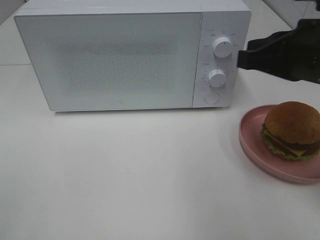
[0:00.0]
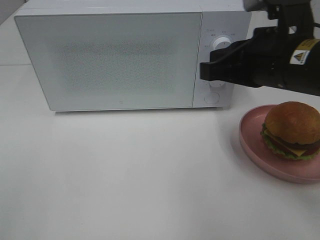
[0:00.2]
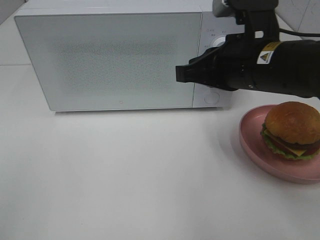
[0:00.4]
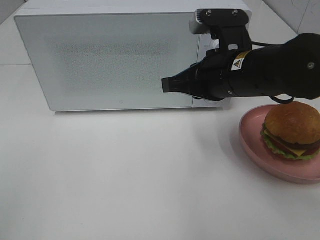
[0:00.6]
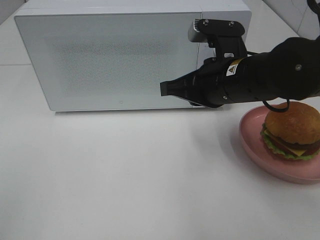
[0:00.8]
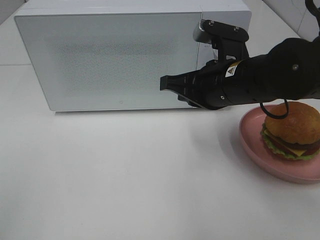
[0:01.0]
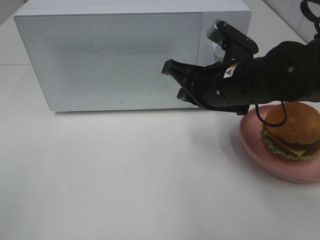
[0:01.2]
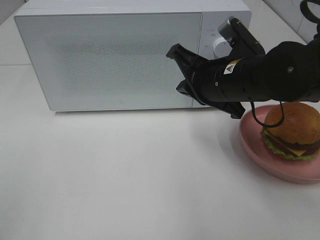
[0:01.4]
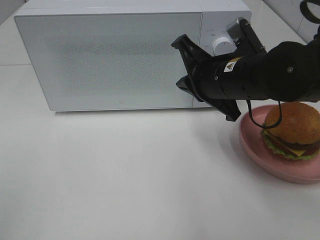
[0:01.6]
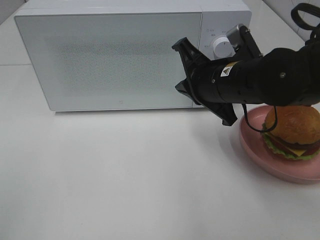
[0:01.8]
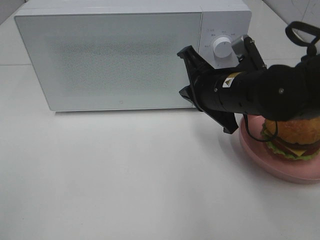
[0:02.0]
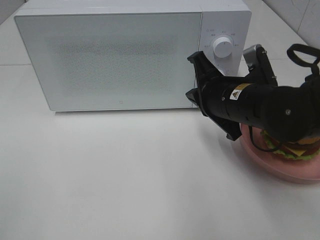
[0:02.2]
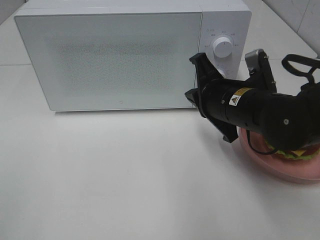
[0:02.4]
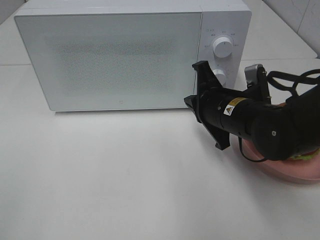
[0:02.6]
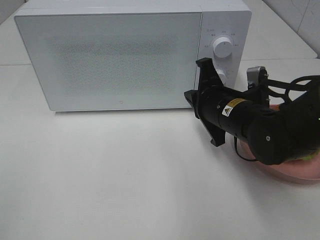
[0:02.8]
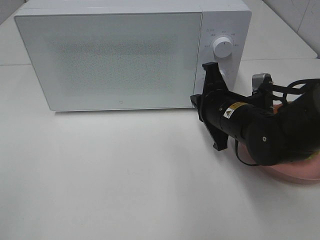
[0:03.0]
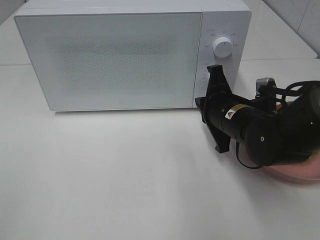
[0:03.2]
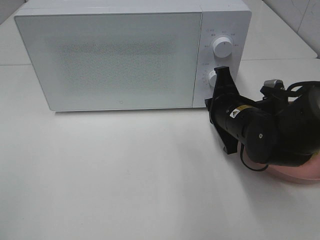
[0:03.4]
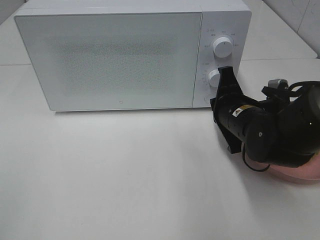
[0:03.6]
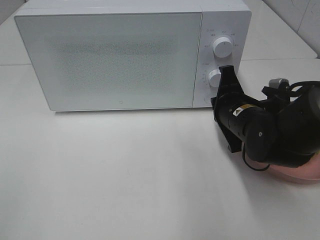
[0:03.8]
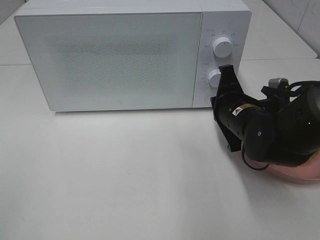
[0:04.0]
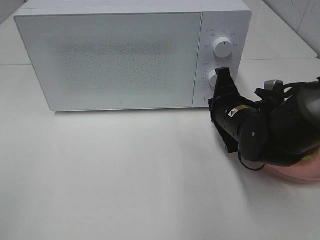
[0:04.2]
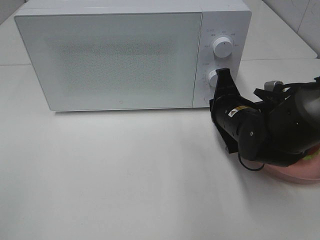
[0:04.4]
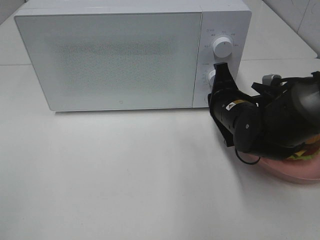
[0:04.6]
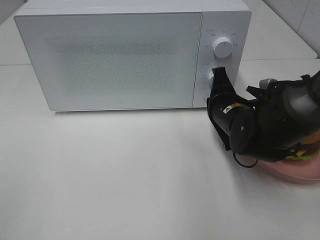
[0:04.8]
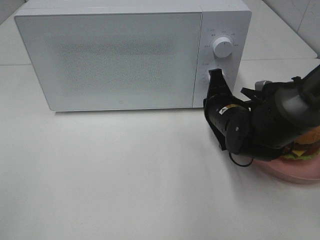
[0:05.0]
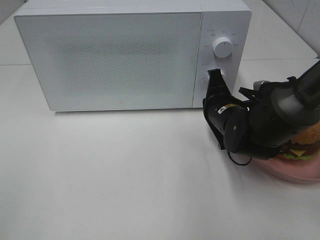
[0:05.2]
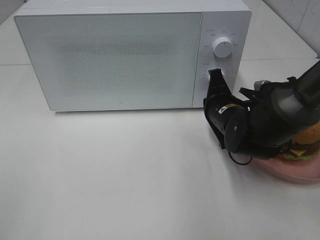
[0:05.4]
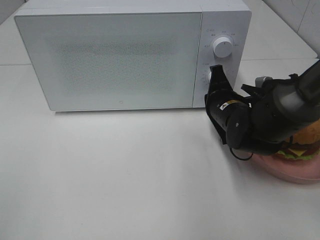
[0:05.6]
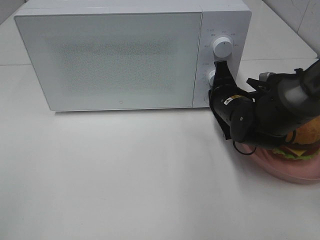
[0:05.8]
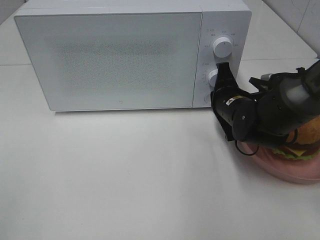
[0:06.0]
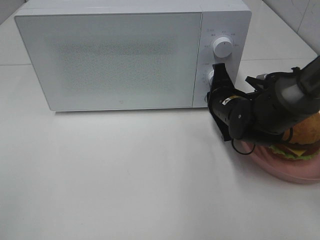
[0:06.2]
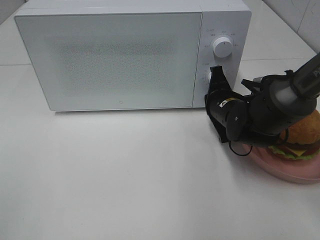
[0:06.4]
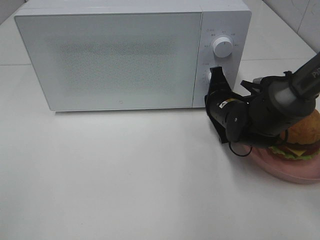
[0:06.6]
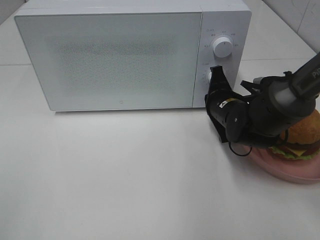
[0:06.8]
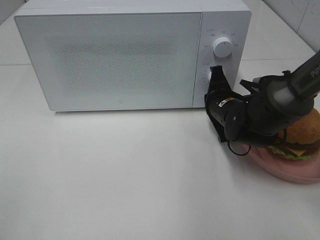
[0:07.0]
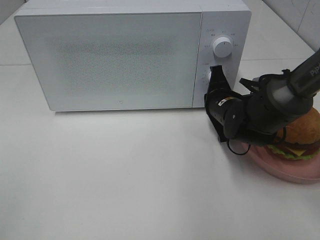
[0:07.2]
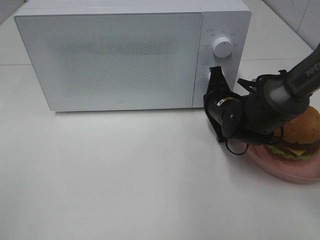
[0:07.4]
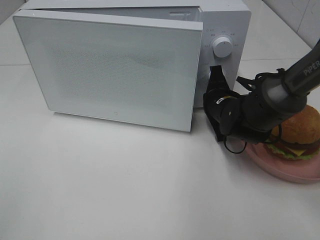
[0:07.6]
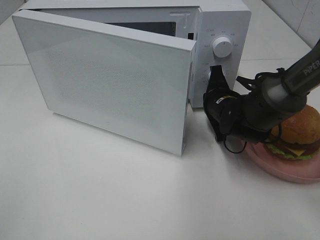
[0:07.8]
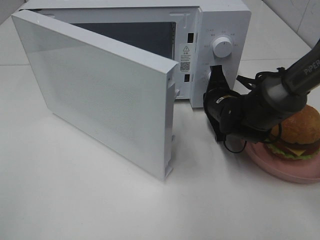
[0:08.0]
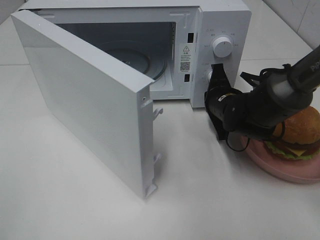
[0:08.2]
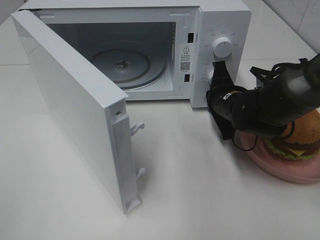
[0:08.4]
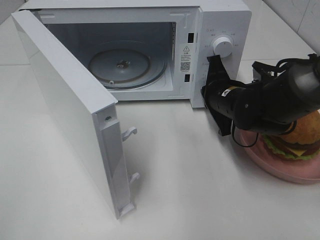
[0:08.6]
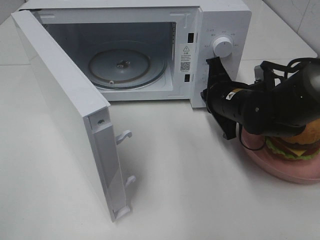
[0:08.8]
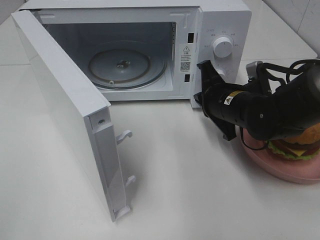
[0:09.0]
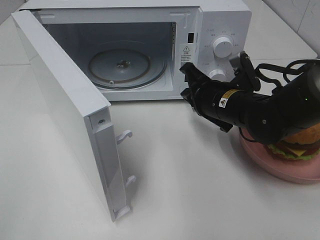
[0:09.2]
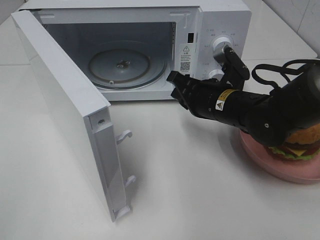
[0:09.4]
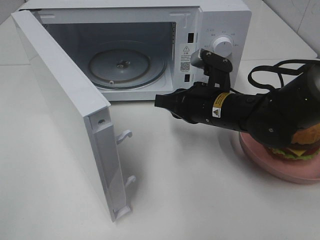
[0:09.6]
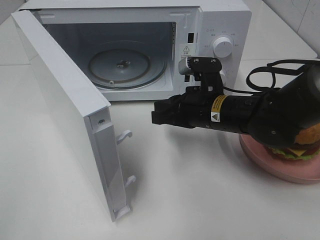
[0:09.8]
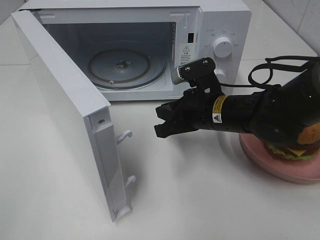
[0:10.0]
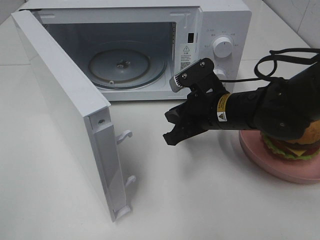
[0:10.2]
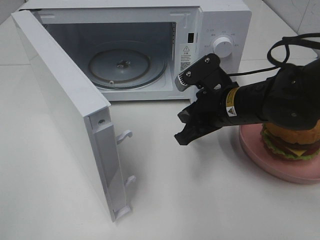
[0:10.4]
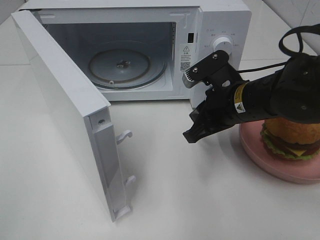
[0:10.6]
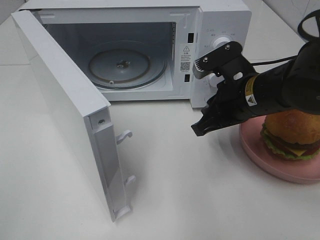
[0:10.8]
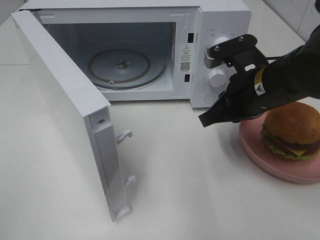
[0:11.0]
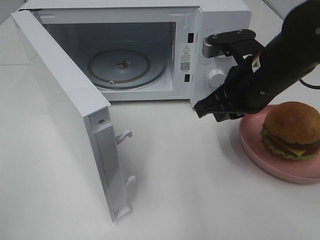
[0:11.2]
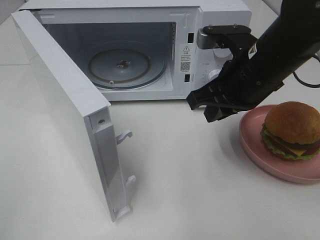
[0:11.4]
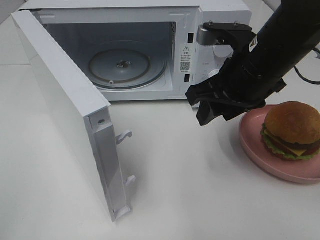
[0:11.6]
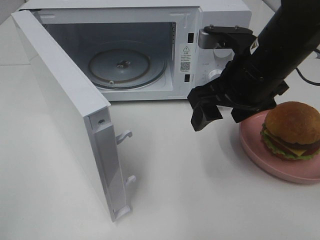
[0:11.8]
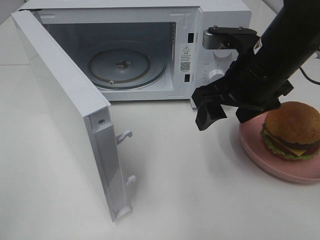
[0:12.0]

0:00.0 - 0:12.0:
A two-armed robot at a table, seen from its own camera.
Task of the whole recording: Heat the burger.
Step, 0:00.0 - 0:08.4: Right hand: press the switch.
0:00.0 - 0:01.6: The right gripper travels to the left, downward and forward by roughly 10 cm.
0:01.6 - 0:03.0: The right gripper travels downward by some 5 cm.
0:03.0 - 0:04.4: The grippers make only small movements.
0:04.4 - 0:06.0: There are only small adjustments of the grippers.
0:06.0 - 0:07.6: The grippers stay close to where they were, moving slightly.
0:07.6 - 0:09.0: The right gripper moves approximately 5 cm.
0:10.4 - 0:12.0: The right gripper shifts about 10 cm upward, and opens.

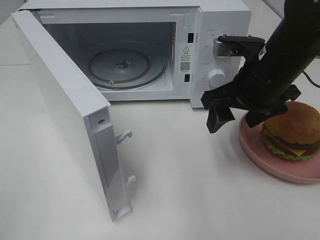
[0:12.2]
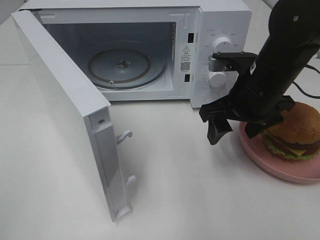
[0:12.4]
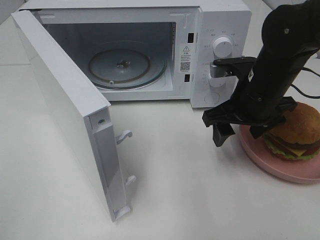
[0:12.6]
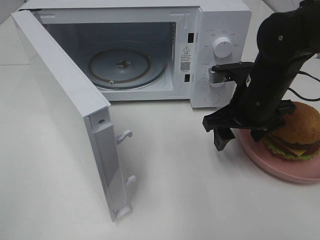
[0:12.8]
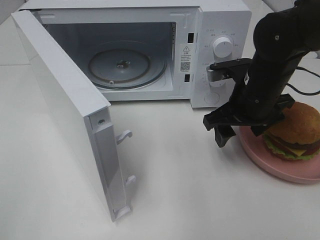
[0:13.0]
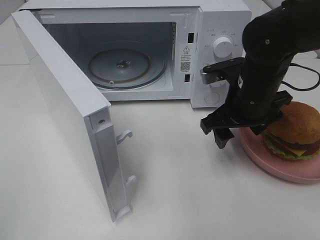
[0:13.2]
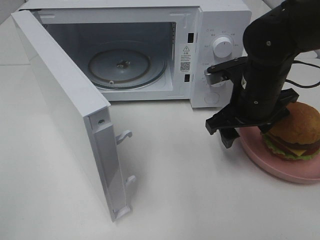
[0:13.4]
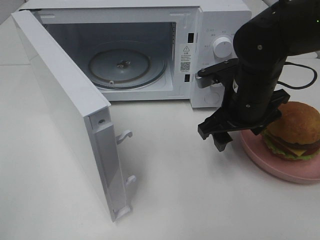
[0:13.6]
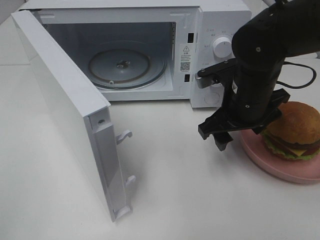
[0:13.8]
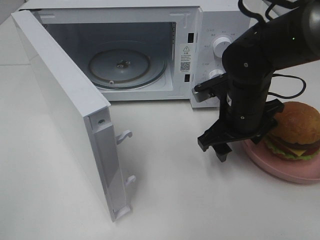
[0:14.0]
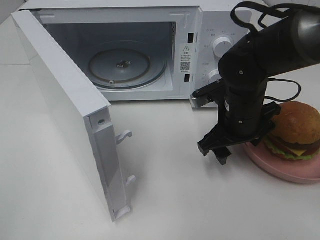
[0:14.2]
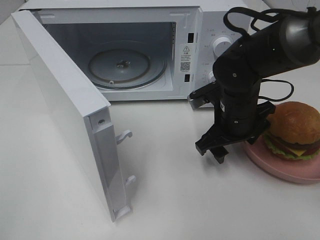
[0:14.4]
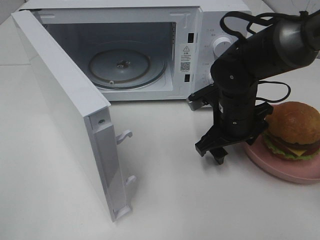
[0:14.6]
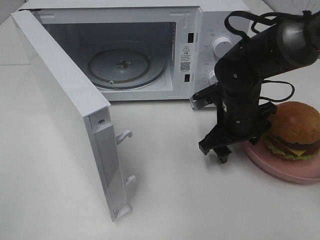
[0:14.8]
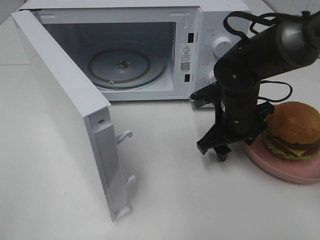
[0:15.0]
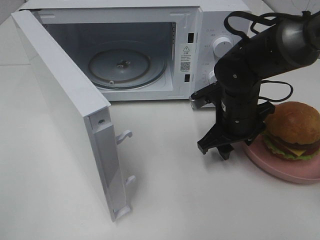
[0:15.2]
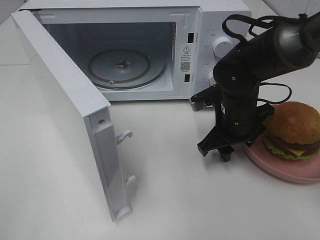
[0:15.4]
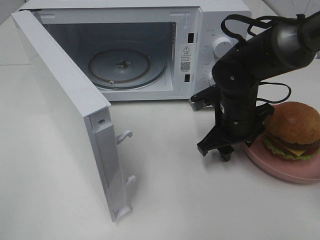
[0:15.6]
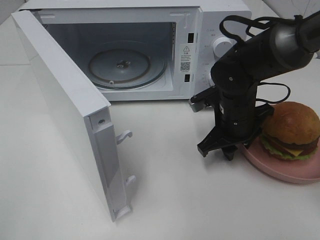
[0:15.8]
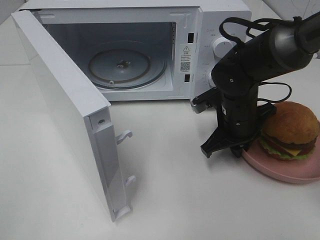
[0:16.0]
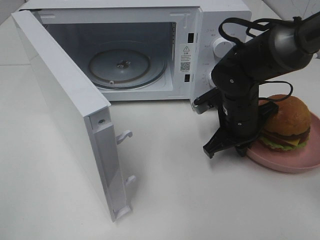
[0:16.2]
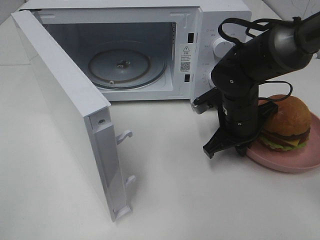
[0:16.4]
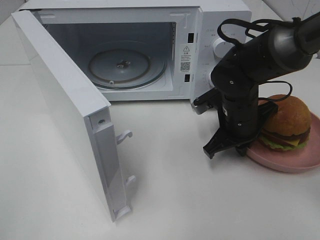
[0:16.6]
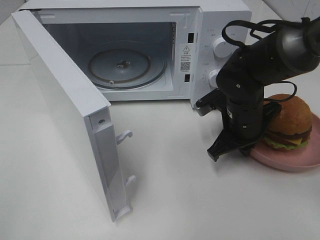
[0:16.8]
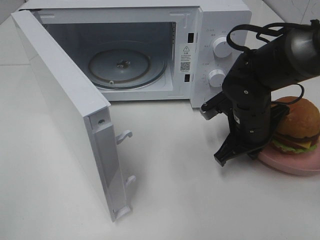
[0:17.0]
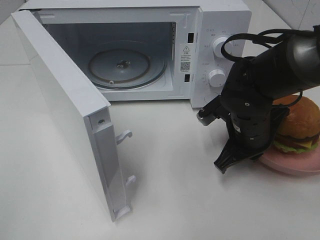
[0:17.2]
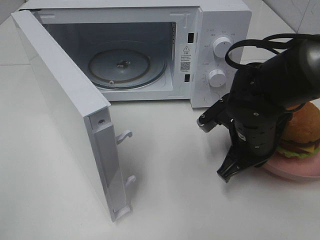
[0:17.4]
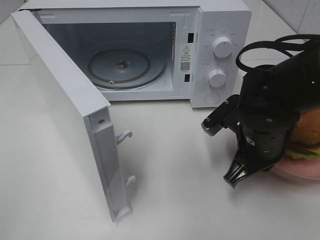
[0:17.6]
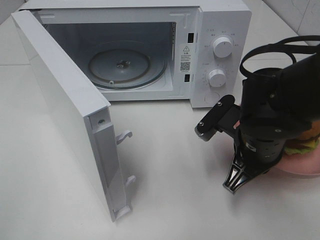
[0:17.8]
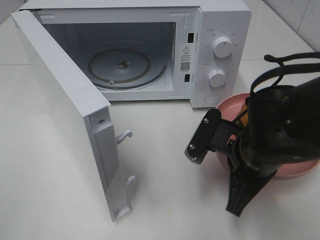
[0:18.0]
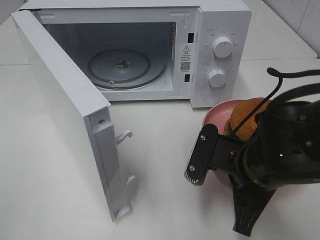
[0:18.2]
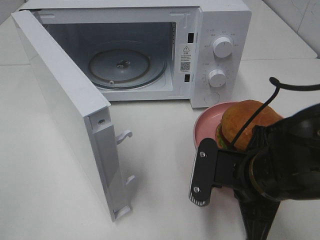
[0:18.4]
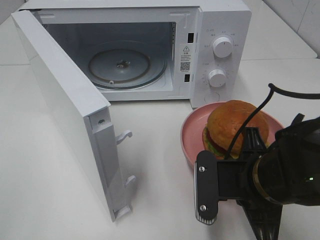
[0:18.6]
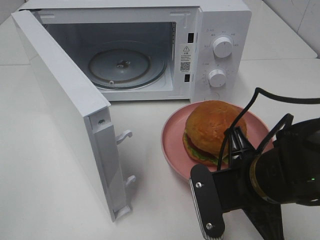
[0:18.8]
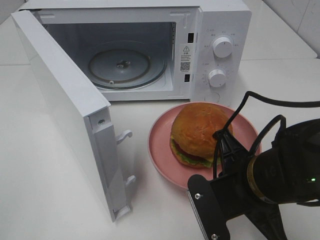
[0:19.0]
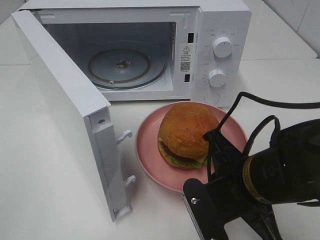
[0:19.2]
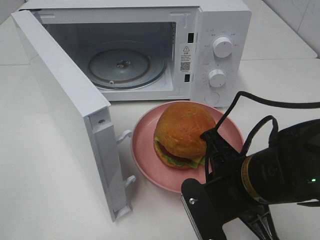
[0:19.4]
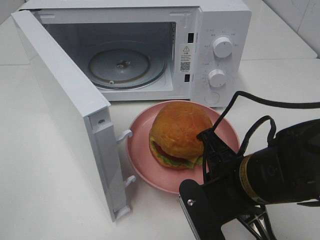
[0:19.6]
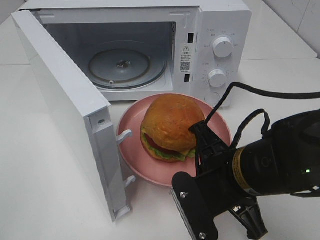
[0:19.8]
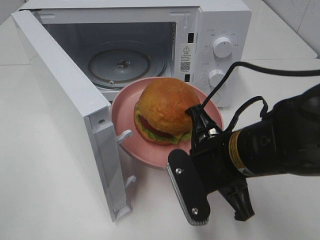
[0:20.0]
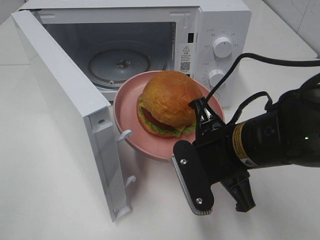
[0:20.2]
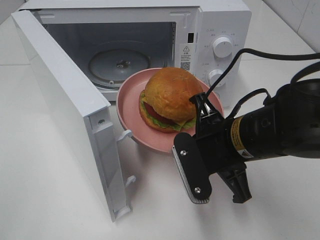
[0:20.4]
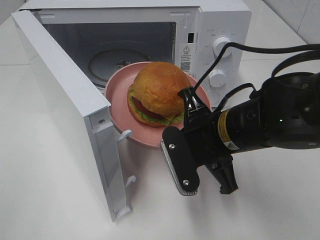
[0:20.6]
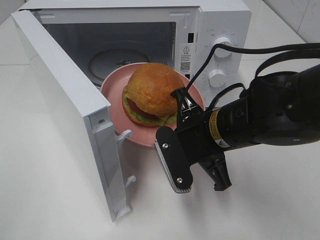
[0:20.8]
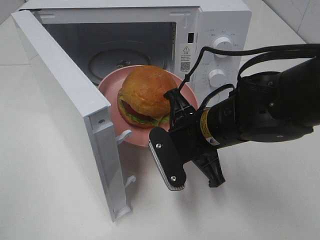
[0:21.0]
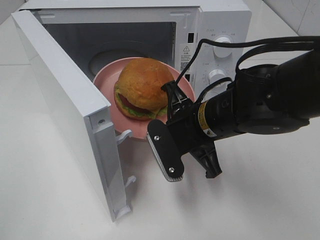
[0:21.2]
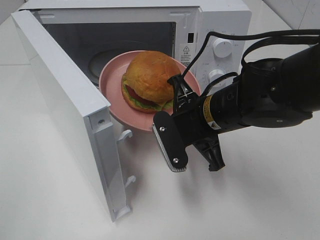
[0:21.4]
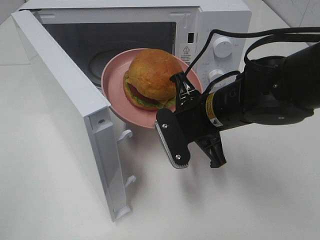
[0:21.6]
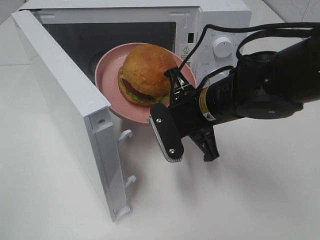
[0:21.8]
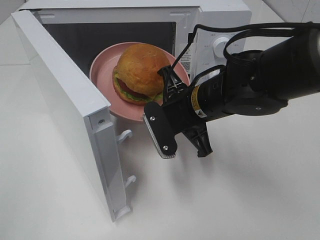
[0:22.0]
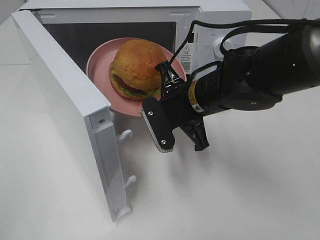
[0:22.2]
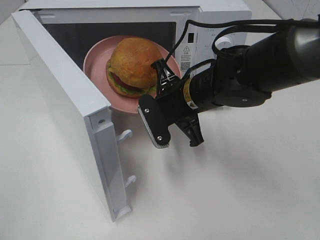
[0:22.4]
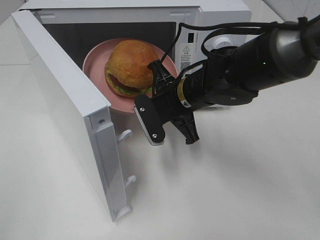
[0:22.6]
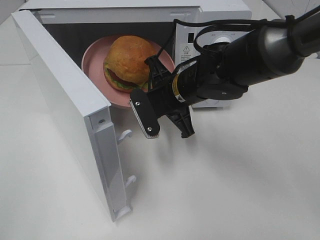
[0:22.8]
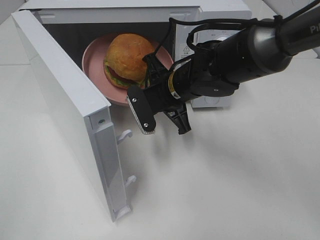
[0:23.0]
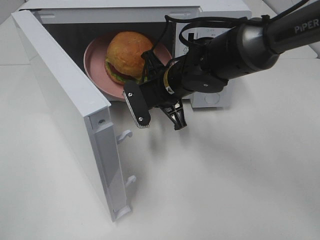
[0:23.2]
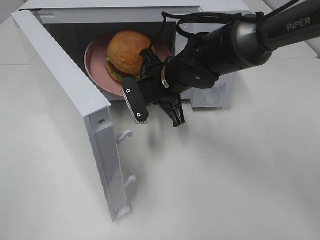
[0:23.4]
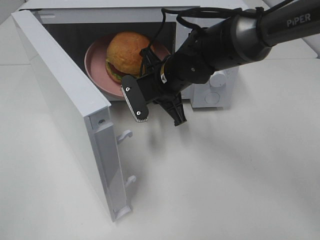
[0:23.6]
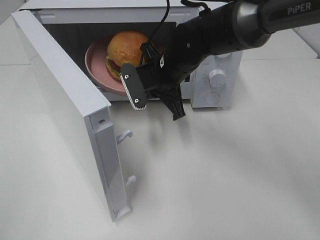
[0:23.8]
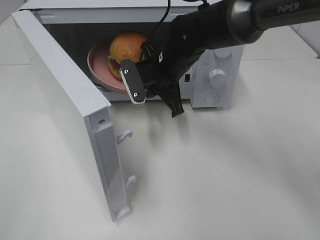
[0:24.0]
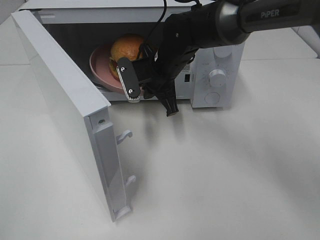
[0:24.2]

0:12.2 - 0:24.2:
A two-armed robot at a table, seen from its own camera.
Task of the whole recording: Heat the burger.
Step, 0:12.2 - 0:16.2: Right hand: grab the plate with the hamburger.
0:12.2 - 0:13.8: The right gripper changes place by roughly 5 cm.
0:13.8 - 0:15.2: The right gripper moves downward, some 5 cm.
0:15.2 - 0:16.6: The right gripper closes.
0:16.6 - 0:18.2: The right gripper goes some 15 cm backward.
0:19.8 - 0:21.2: The right gripper travels forward by roughly 10 cm.
0:21.2 - 0:22.6: The right gripper goes roughly 5 cm forward.
0:22.6 - 0:24.2: The right gripper is displaced forward by about 10 cm.
